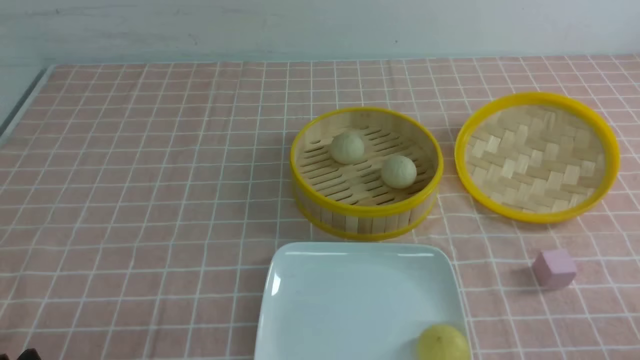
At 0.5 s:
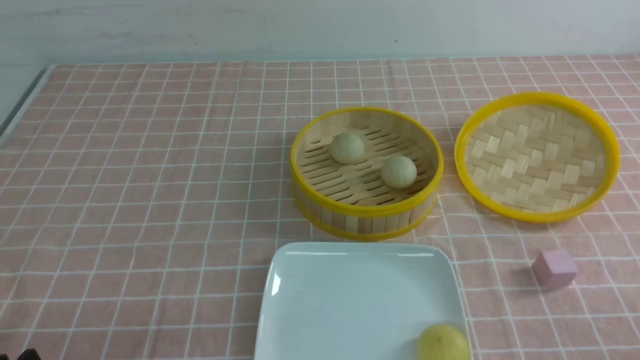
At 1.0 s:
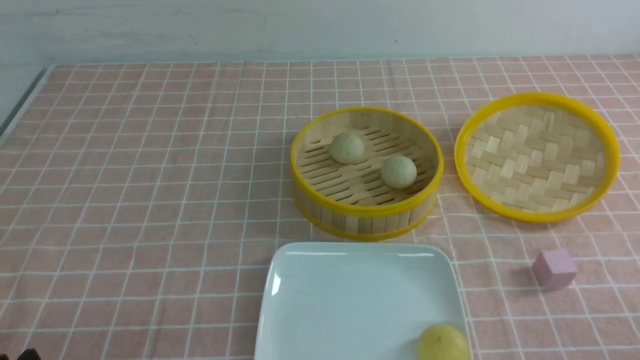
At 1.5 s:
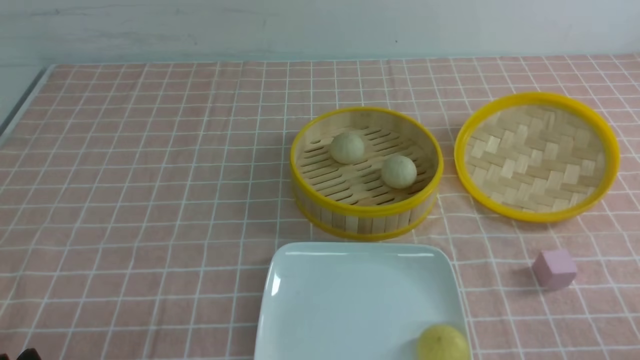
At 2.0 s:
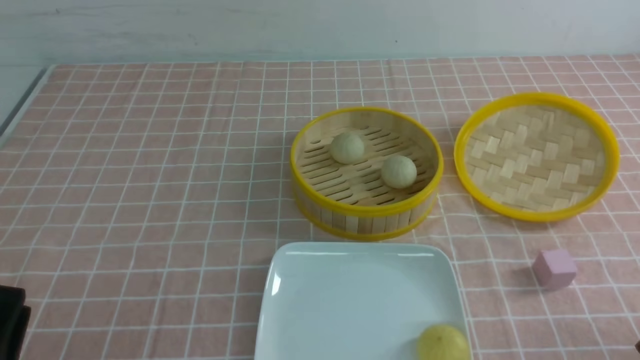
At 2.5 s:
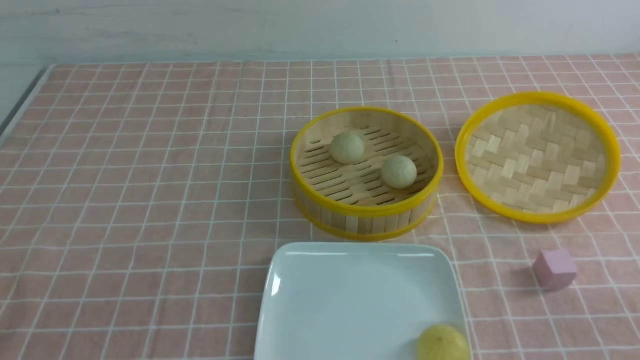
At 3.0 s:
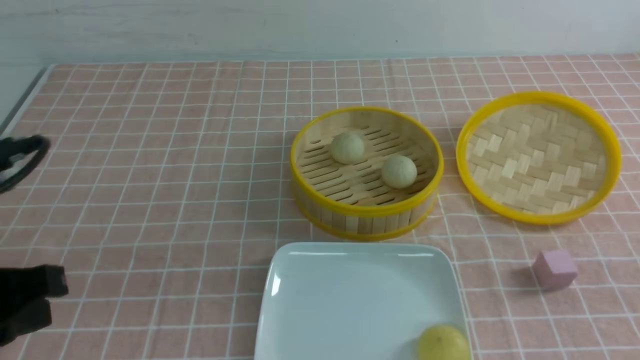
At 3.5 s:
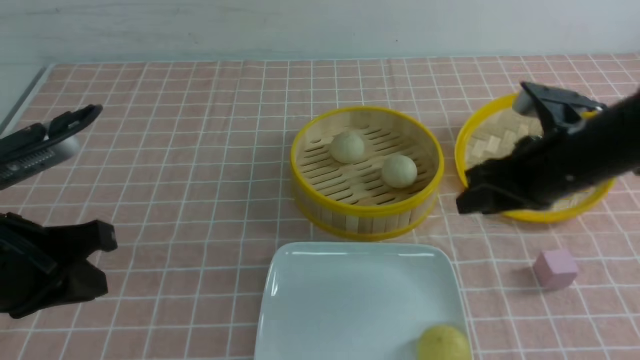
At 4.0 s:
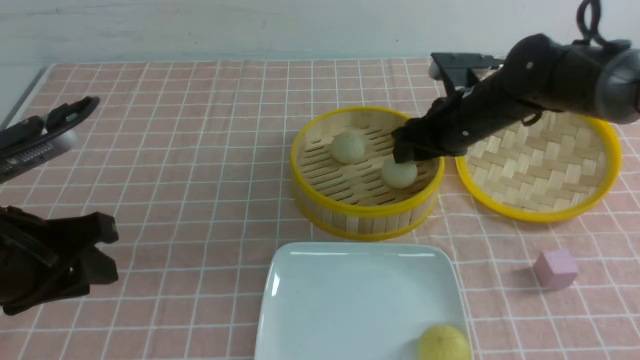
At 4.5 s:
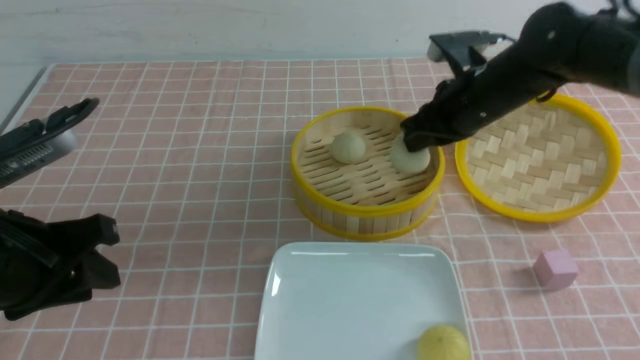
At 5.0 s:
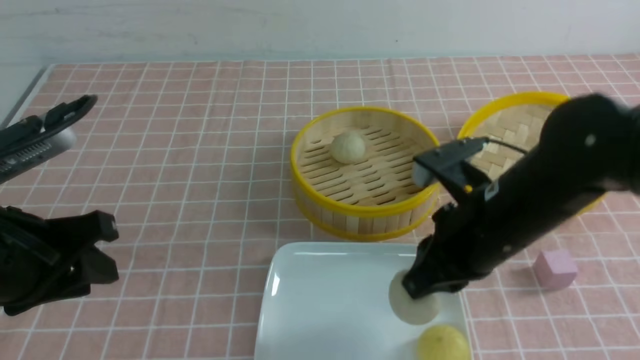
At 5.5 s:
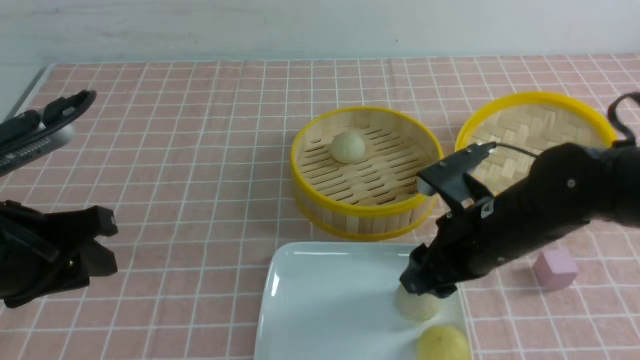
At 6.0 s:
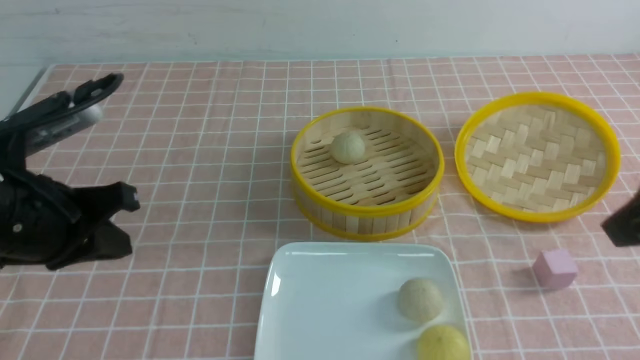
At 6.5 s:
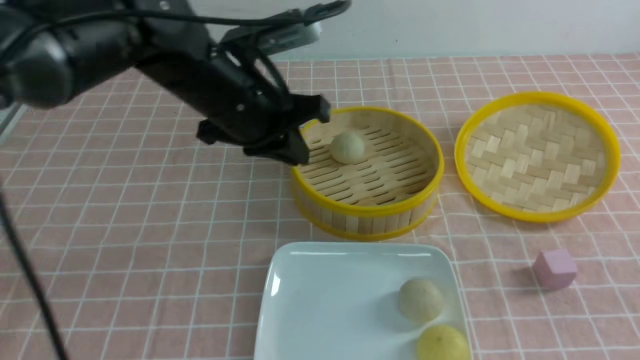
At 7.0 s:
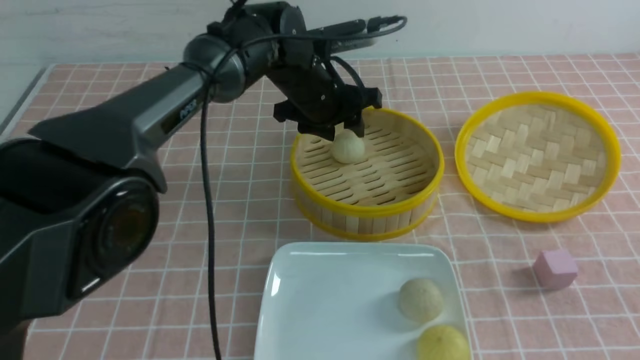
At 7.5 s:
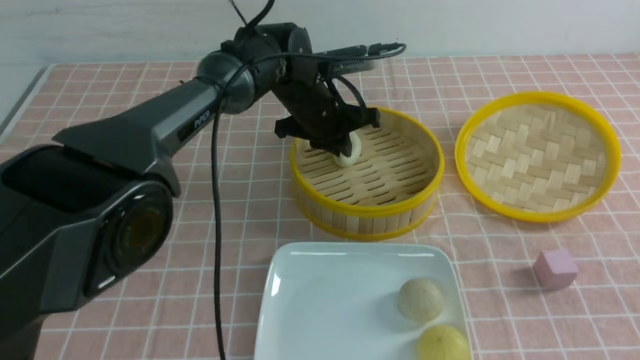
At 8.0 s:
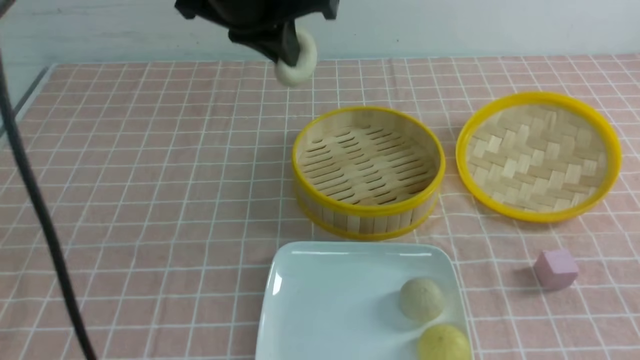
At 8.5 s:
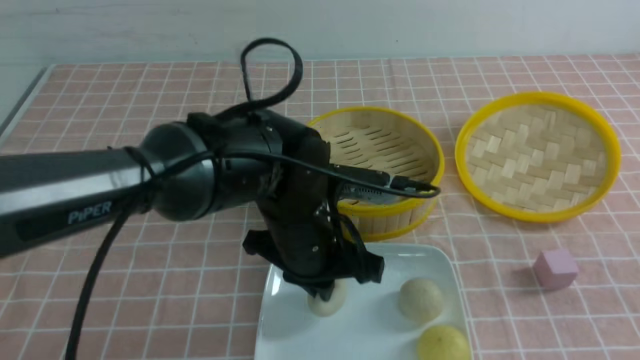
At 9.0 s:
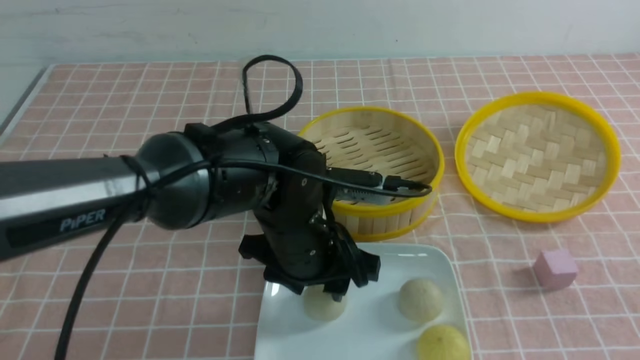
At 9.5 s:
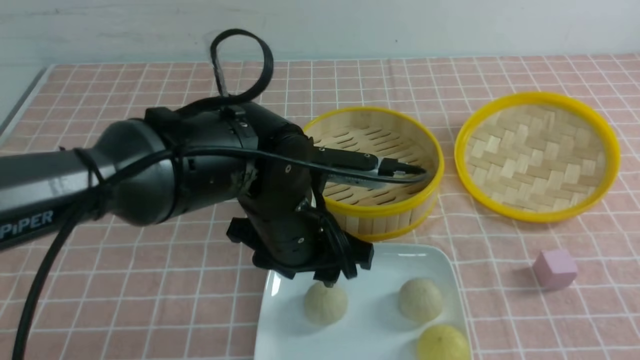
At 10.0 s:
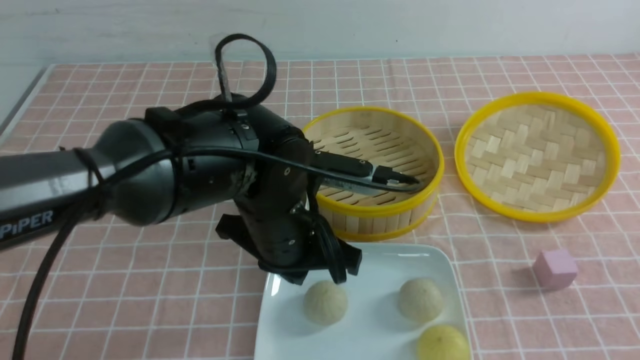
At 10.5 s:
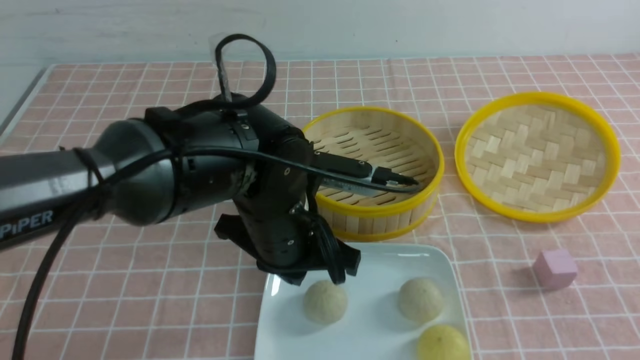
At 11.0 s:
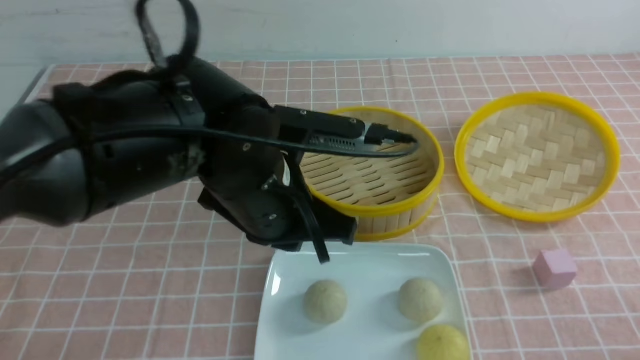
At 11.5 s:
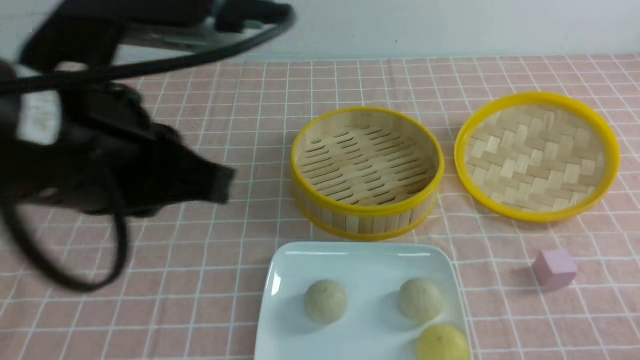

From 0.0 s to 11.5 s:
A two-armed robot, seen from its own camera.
Step, from 0.0 s to 4.0 s: use the right arm to grab the steamed stuffed bun that is closest to it.
Step, from 4.5 s to 5.0 s: use the right arm to put the steamed stuffed bun into the plate.
Step, from 5.5 s to 7.0 s: use the left arm to grab the steamed stuffed bun that is closest to it.
Step, from 7.5 s to 9.0 s: use the left arm to put the steamed stuffed bun into the plate.
From 2.0 s to 4.0 s: The right gripper goes about 35 cm forward, and closes, then opens again. Meanwhile the left gripper shifts roughly 15 cm forward and upward, and closes, then opens again.
From 4.0 s to 6.0 s: The left gripper closes, while the right gripper shifts roughly 30 cm backward and upward, and closes its fingers.
From 6.0 s to 7.5 s: The right gripper moves backward, roughly 5 cm, while the left gripper heads forward and to the right, covering some 30 cm, and opens and closes again.
From 7.5 s to 9.5 s: The left gripper goes some 20 cm backward, and opens, while the right gripper heads backward, covering roughly 5 cm.
From 9.5 s to 11.5 s: The right gripper travels downward by about 10 cm; the left gripper travels upward, to the left and backward by roughly 20 cm, and closes.

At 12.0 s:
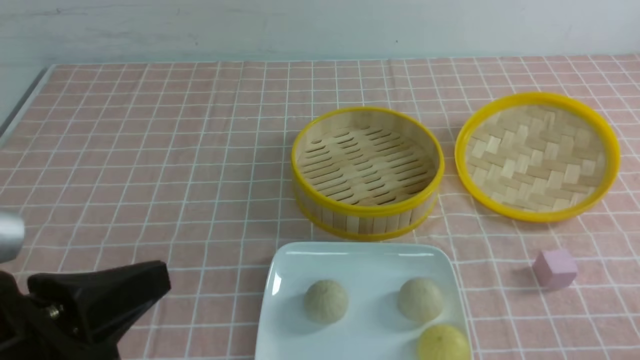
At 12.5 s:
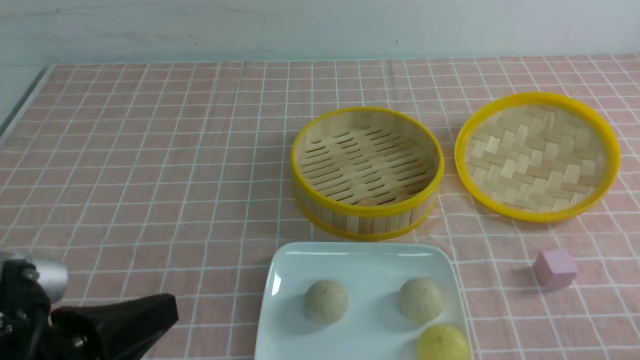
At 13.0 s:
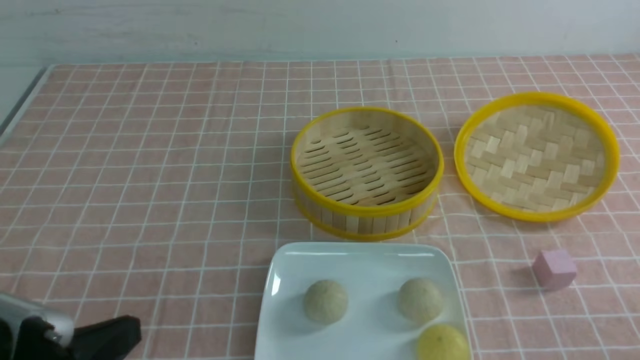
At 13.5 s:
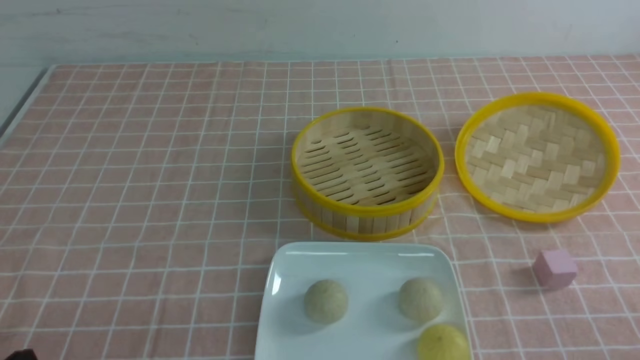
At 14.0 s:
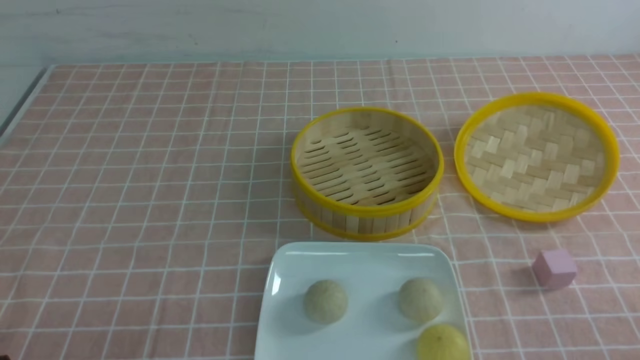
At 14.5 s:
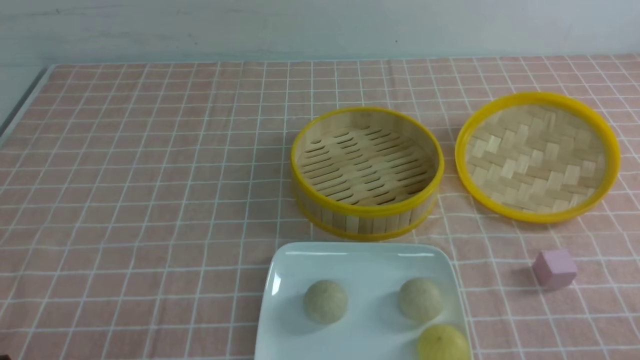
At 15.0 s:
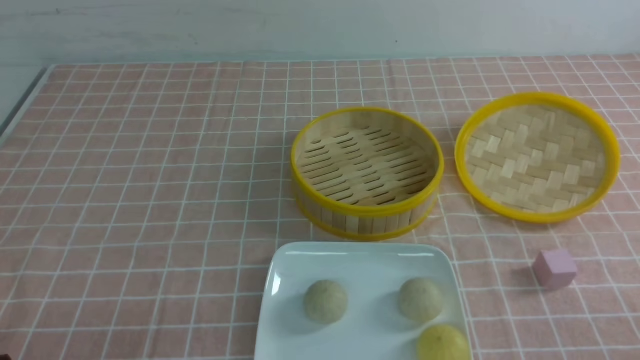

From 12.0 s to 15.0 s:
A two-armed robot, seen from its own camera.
From 12.0 s to 13.5 s: The left gripper is displaced downward and to the left by some 15 cm.
